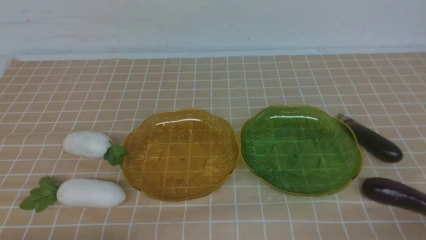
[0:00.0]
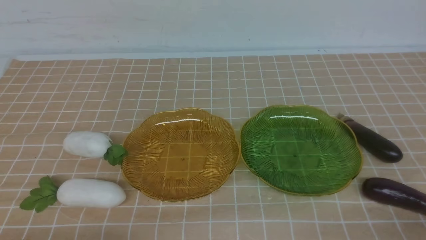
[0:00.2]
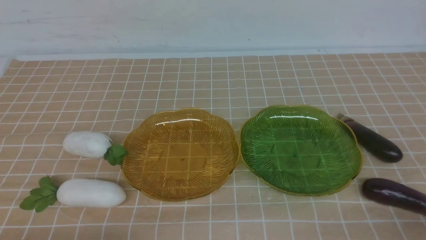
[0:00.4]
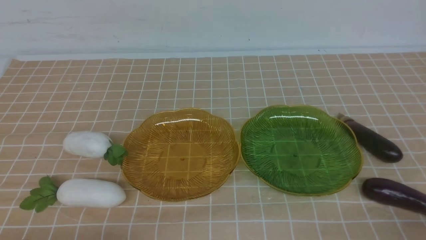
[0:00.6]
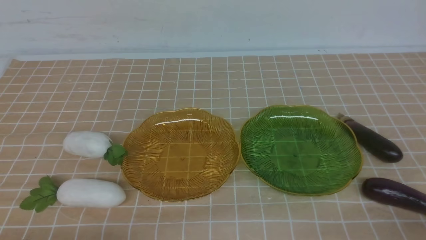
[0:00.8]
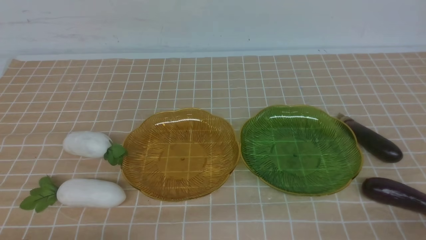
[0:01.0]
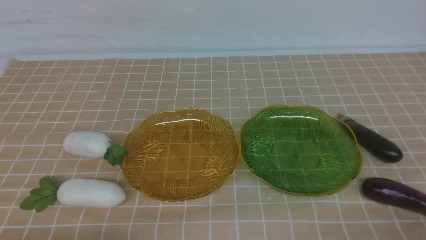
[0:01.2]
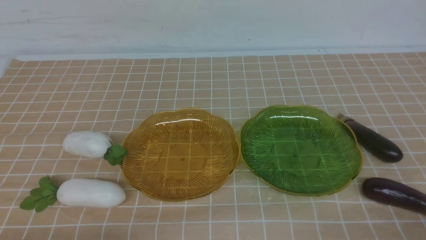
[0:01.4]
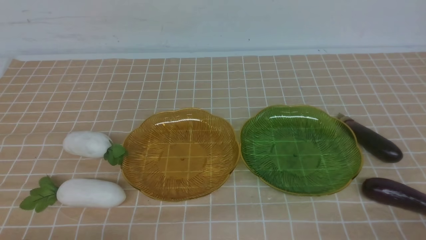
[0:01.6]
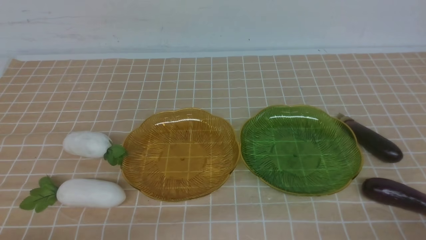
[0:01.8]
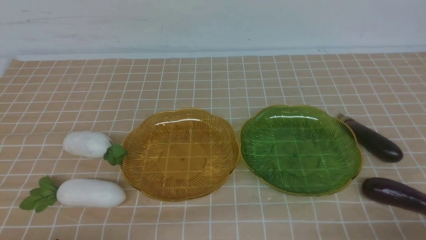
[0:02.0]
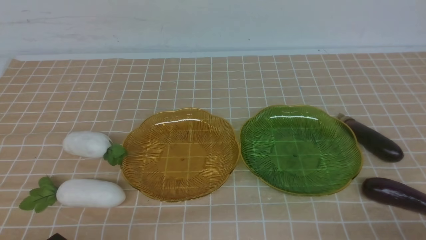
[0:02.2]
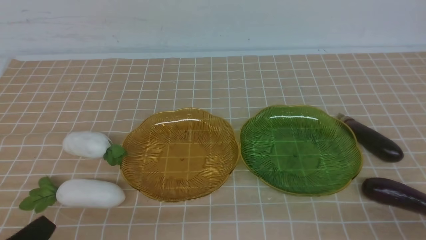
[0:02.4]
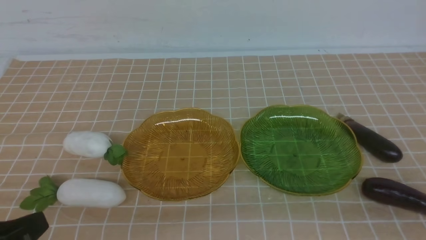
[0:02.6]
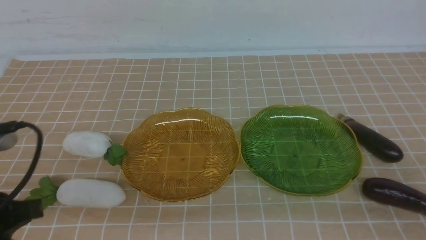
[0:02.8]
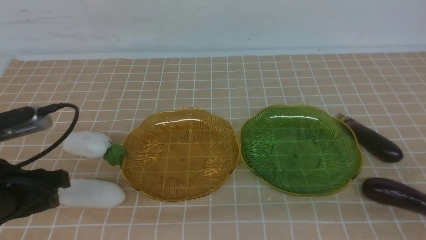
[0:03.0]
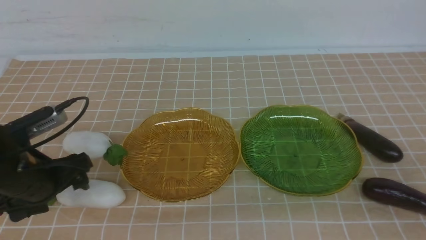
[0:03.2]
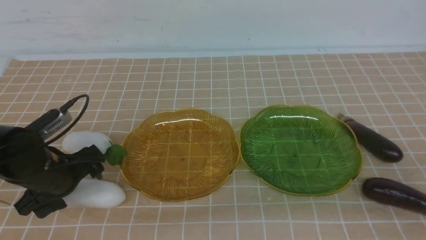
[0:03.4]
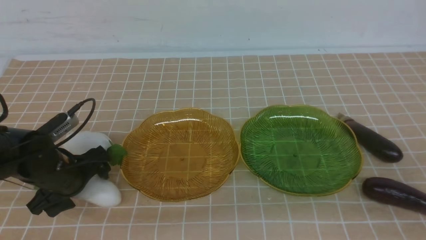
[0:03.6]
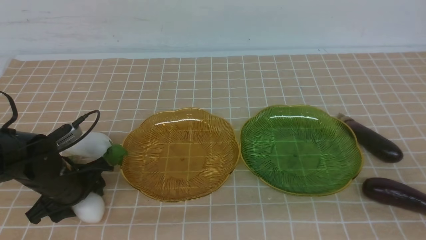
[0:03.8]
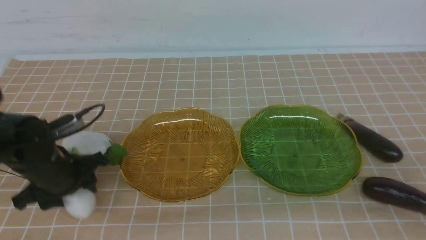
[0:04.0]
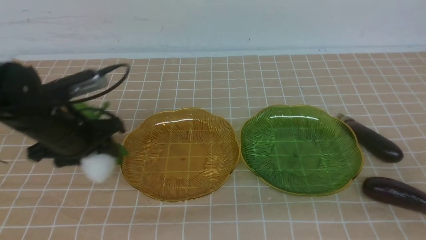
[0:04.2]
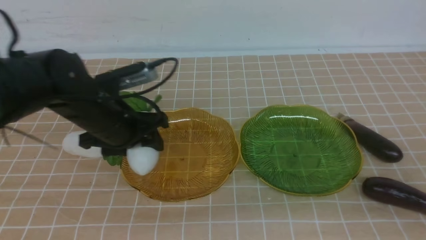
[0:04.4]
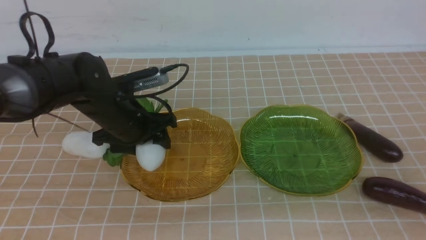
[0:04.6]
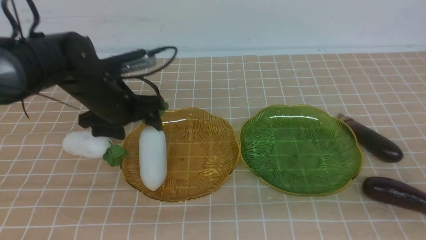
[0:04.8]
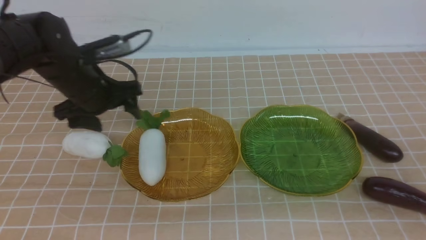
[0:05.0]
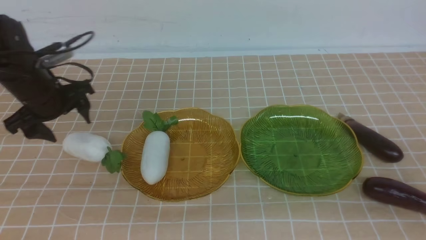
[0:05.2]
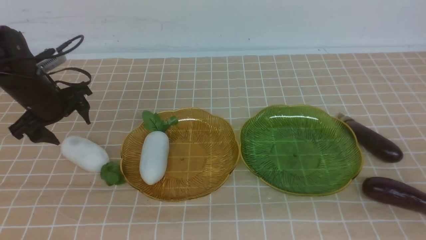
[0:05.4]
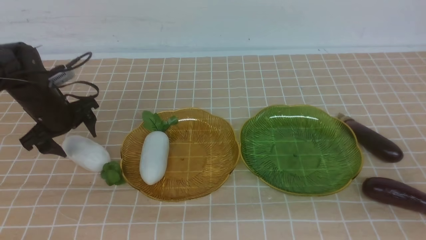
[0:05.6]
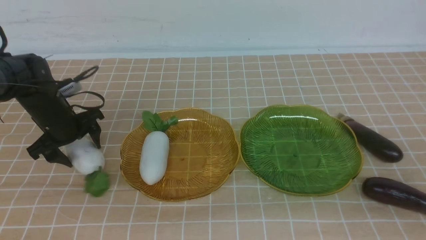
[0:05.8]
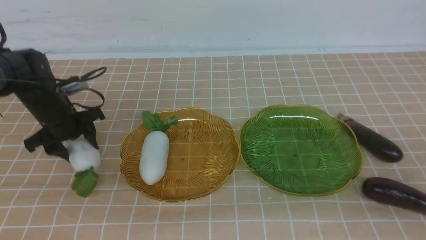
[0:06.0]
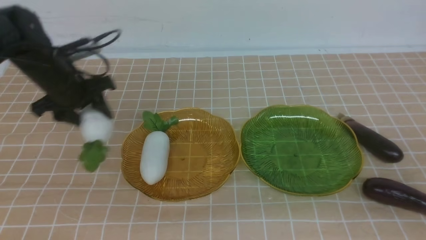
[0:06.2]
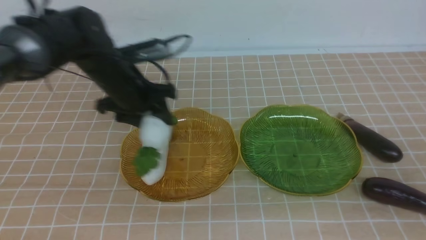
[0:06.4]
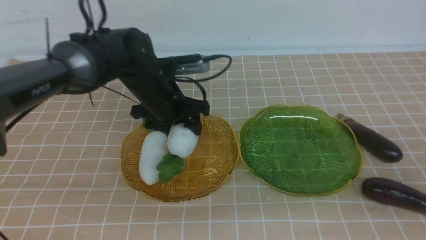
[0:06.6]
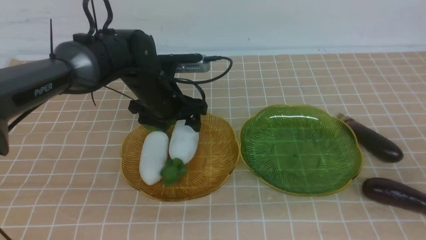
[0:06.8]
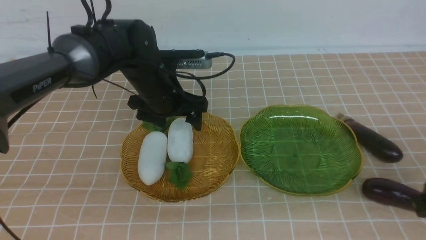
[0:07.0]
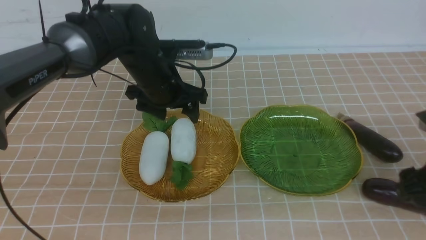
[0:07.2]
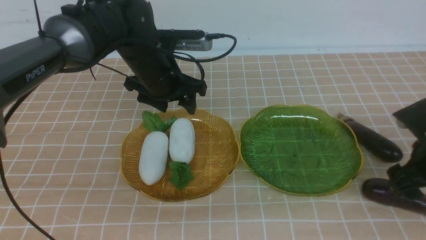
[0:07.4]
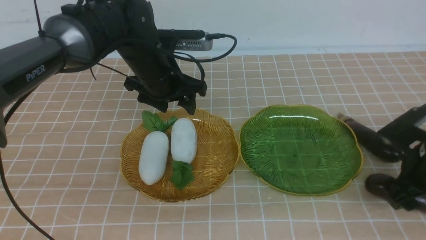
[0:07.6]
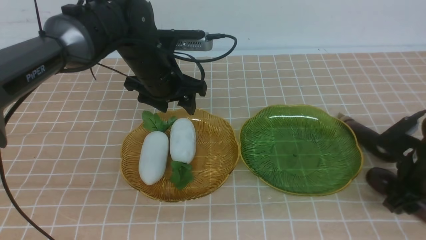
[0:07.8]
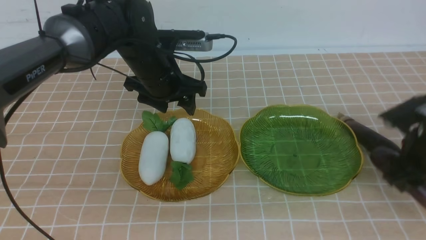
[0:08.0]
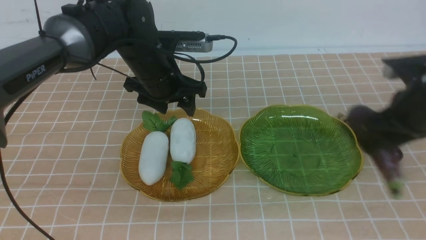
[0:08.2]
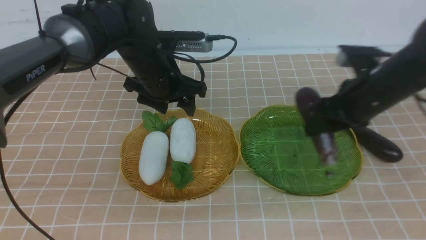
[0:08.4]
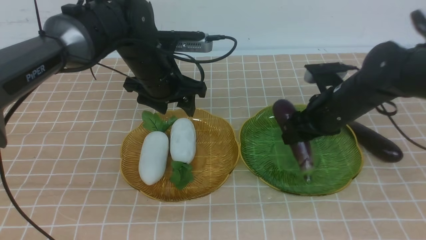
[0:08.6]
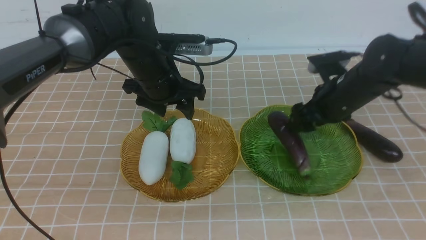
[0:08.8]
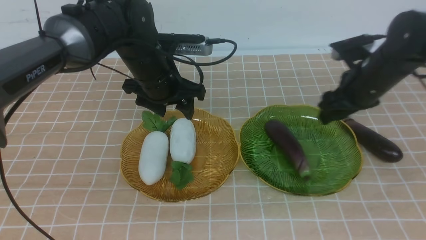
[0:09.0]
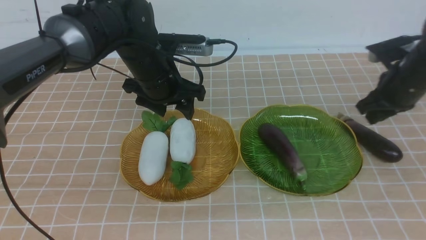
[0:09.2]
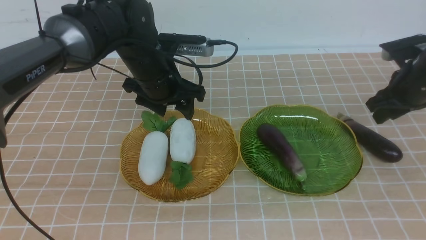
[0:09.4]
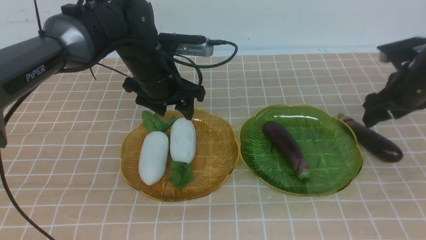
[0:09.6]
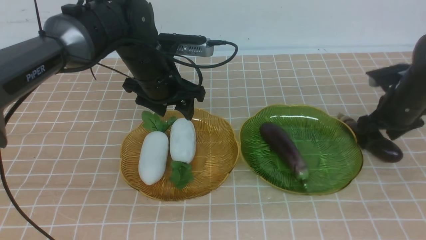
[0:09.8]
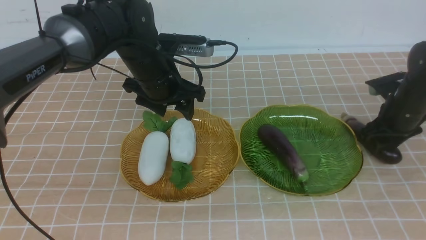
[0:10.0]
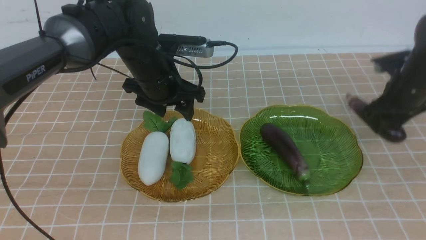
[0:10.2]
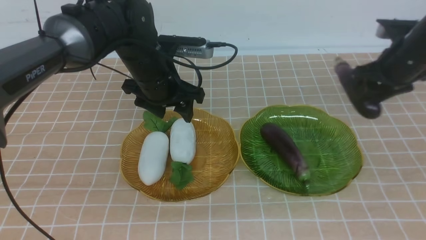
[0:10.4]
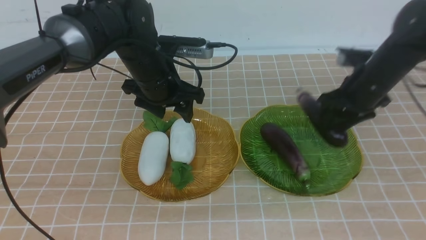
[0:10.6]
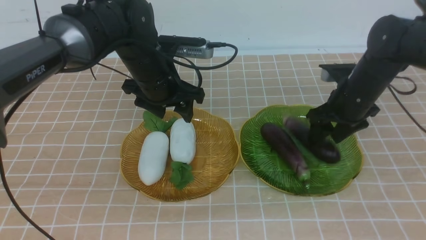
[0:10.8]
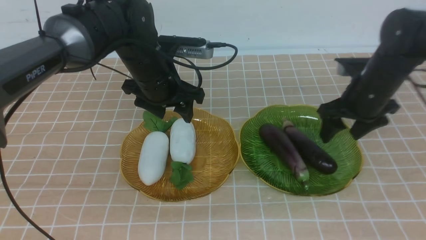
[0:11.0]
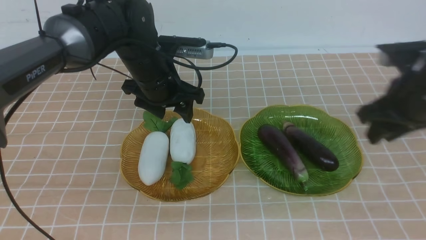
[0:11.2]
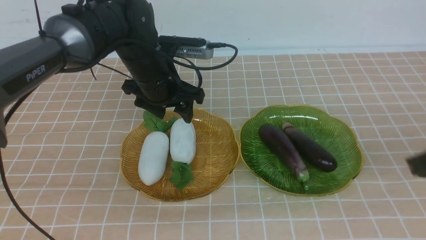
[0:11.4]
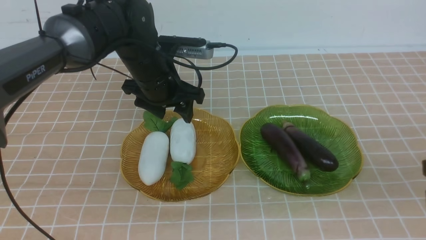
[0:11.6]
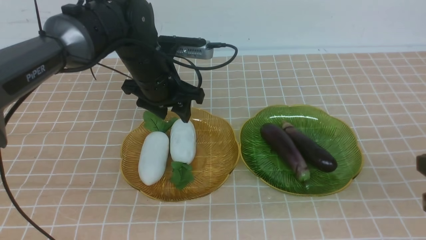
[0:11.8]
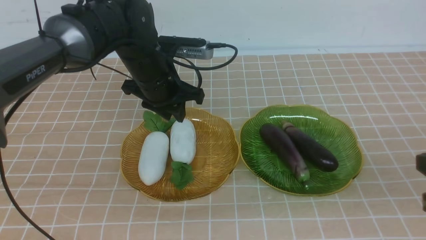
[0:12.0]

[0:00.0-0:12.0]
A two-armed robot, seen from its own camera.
Step, 0:00.0 to 0:04.8: use the left arm to grab a radish and put it into the left plate.
Step, 0:05.2 to 0:07.0: use the left arm to grab a radish and put it into the left plate.
Step, 0:07.2 to 0:10.8: use the right arm to grab an eggplant and put it into the right plate.
0:01.6 to 0:03.0: The left gripper travels forward and upward by roughly 15 cm, and opens its fingers.
0:03.0 to 0:04.4: The left gripper shifts roughly 15 cm forward and to the right.
0:04.4 to 0:06.0: The left gripper travels forward by some 5 cm, and moves some 10 cm to the left and comes back.
0:06.0 to 0:07.6: The right gripper travels forward by approximately 20 cm, and opens its fingers. Meanwhile the left gripper goes some 5 cm to the right.
0:07.6 to 0:09.0: The right gripper is displaced forward by some 10 cm, and moves about 5 cm to the left and comes back.
0:09.0 to 0:10.4: The right gripper goes approximately 10 cm to the left.
0:10.4 to 0:12.0: The right gripper heads backward, covering approximately 25 cm, and closes its fingers, while the left gripper closes its fingers.

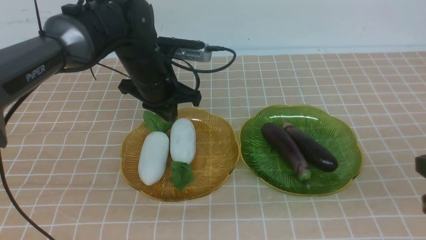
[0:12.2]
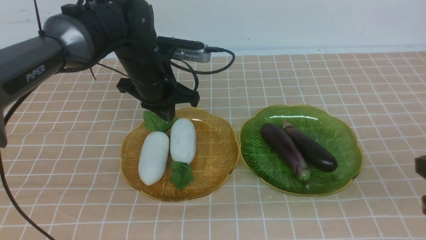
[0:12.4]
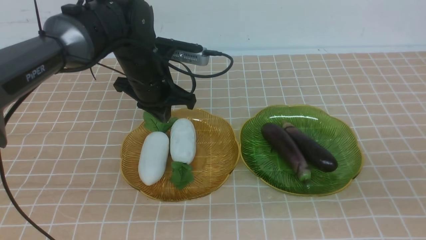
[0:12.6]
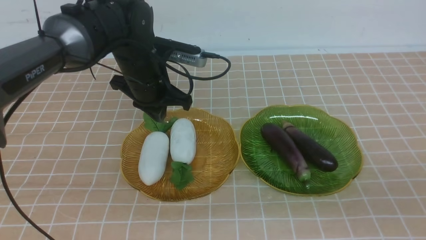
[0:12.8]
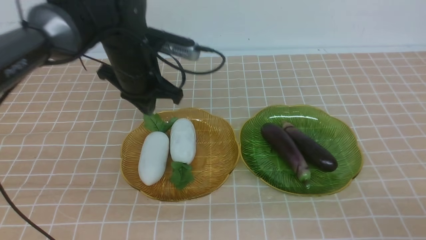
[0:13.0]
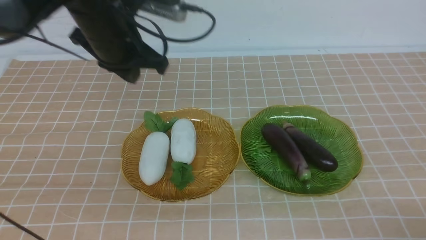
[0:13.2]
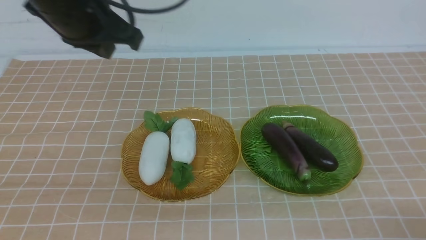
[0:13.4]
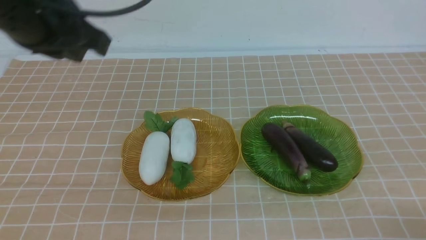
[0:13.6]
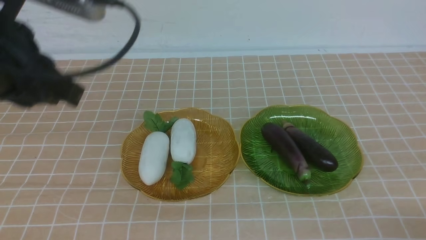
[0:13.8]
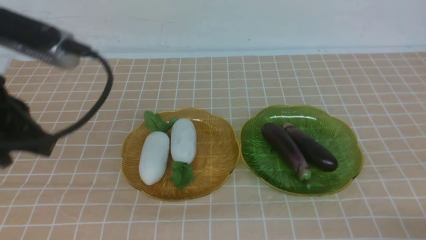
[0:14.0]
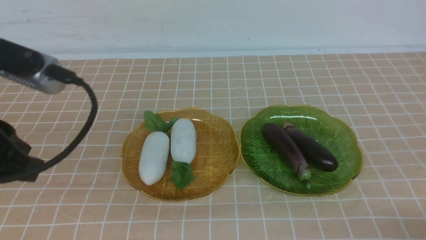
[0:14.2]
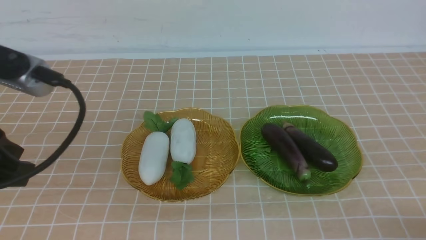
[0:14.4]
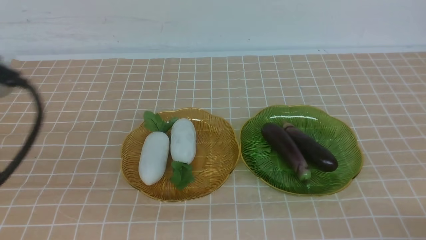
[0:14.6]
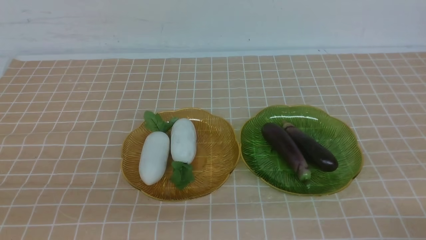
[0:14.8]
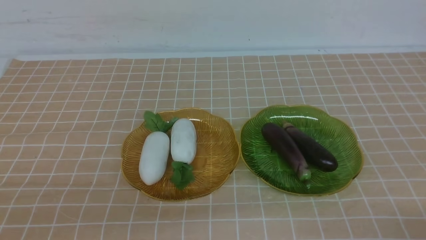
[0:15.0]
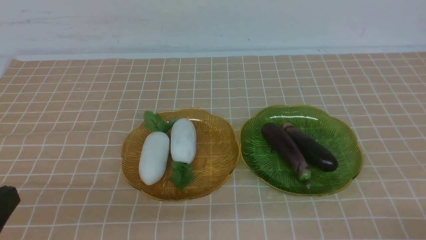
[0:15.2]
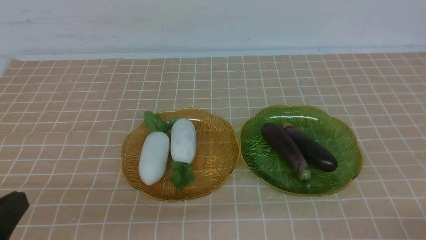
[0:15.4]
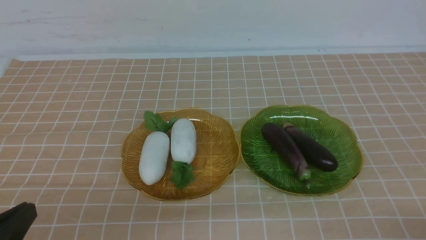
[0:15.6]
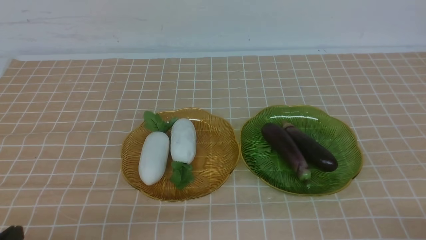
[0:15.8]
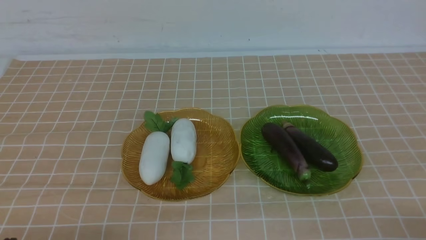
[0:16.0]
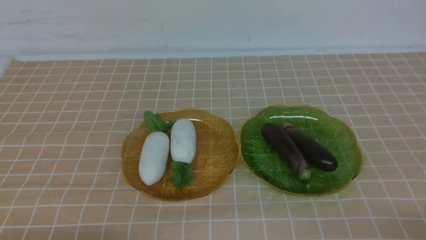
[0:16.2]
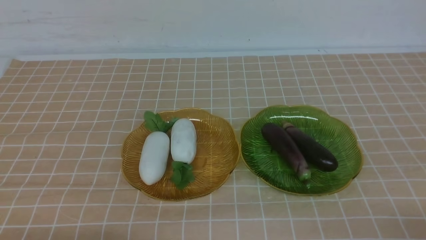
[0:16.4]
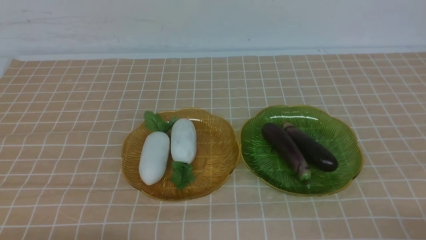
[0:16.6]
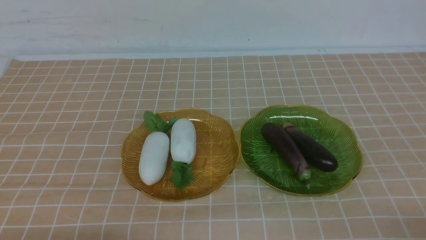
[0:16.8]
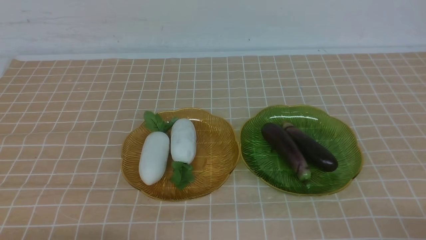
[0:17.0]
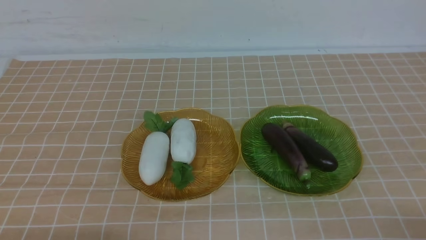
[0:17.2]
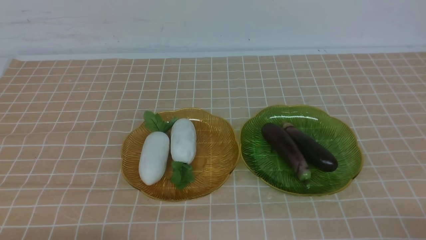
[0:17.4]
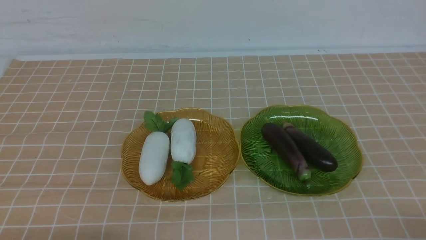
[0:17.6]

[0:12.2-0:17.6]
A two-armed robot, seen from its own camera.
0:12.2 to 0:13.6: The right gripper moves downward, approximately 10 cm. Meanwhile the left gripper moves backward, upward and to the left, some 30 cm.
0:13.6 to 0:15.0: The left gripper is displaced downward and backward by approximately 20 cm.
0:16.2 to 0:17.6: The two grippers keep their place.
